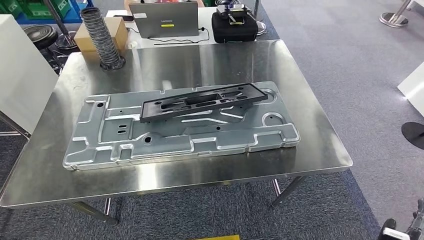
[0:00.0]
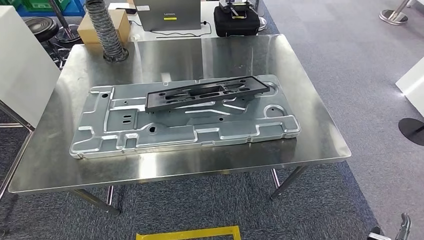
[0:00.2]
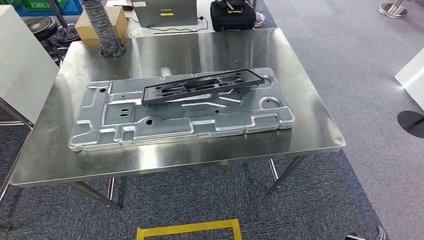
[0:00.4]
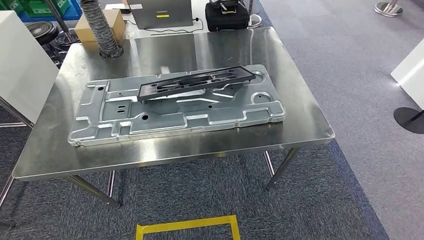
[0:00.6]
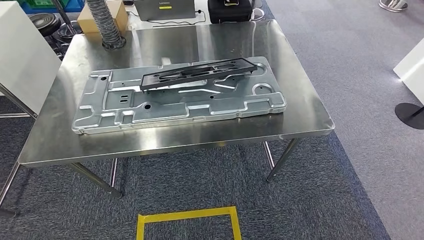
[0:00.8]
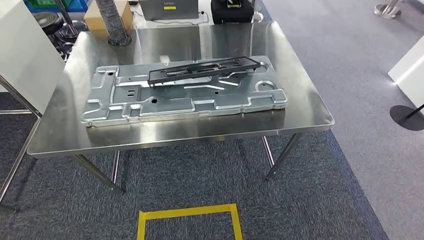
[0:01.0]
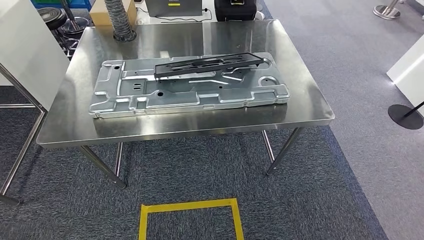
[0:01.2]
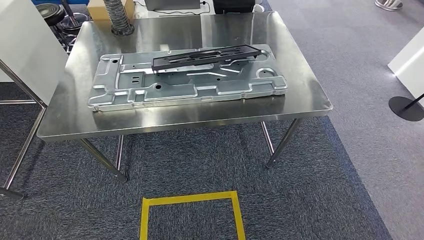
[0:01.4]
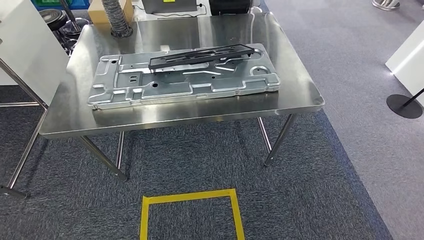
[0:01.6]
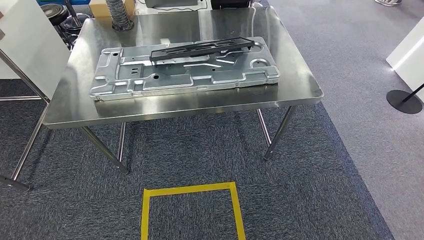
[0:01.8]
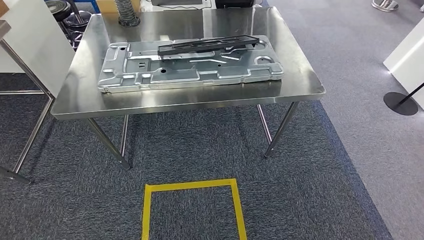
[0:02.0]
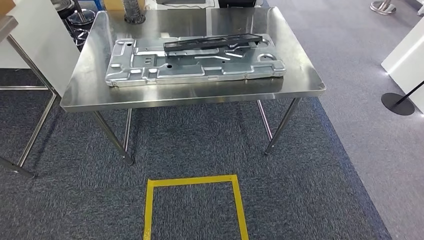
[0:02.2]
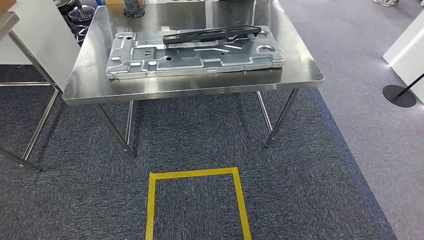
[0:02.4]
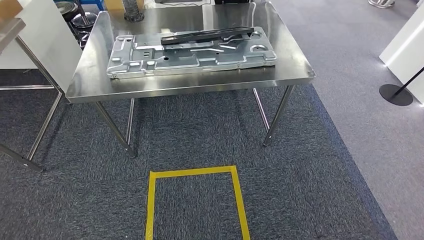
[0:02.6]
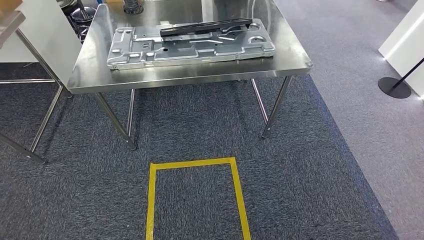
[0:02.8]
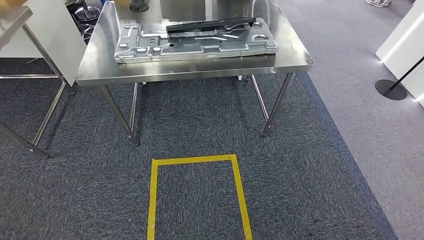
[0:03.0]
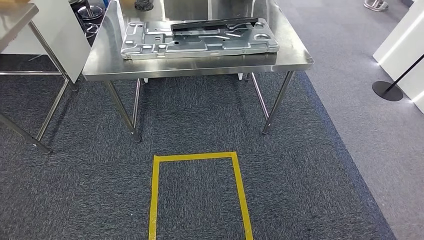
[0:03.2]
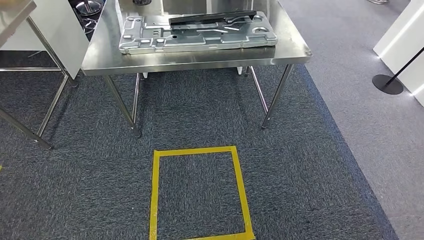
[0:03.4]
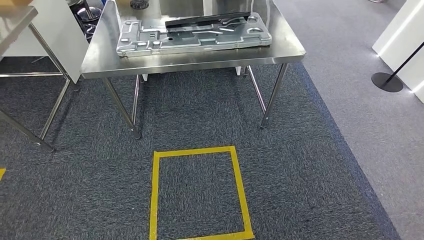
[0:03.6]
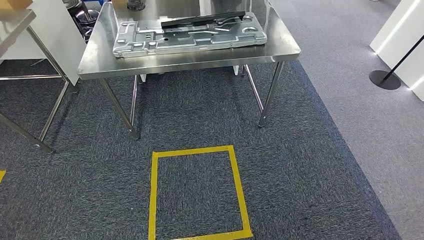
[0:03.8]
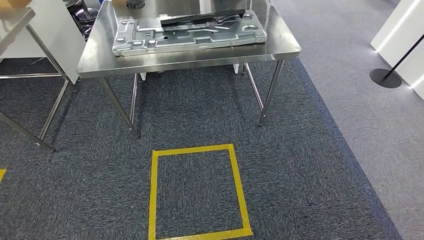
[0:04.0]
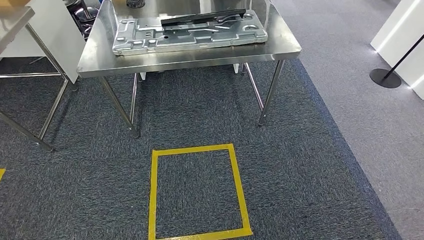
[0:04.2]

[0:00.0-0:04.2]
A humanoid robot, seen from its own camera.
Step, 0:00.4 to 0:04.2: Return to the initial position at the workbench.
